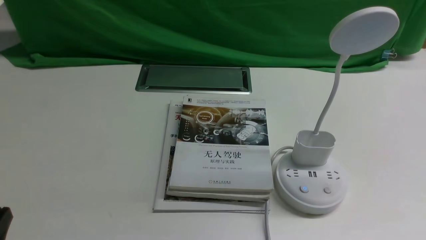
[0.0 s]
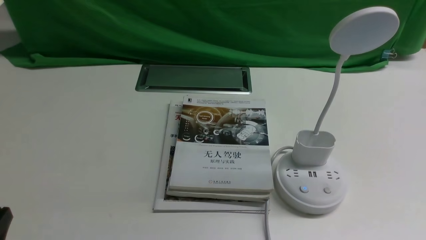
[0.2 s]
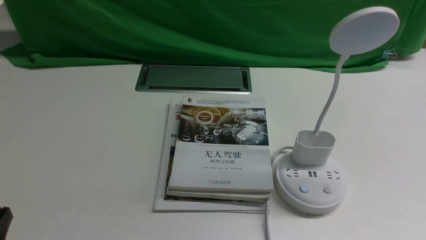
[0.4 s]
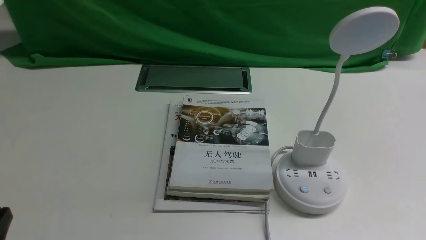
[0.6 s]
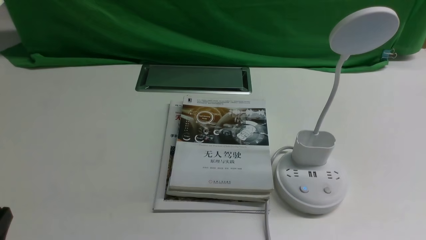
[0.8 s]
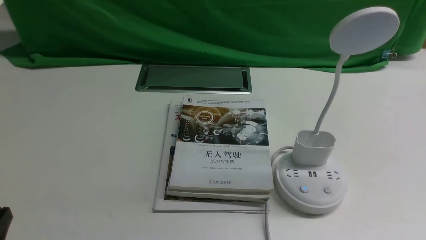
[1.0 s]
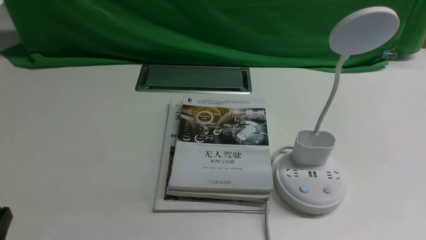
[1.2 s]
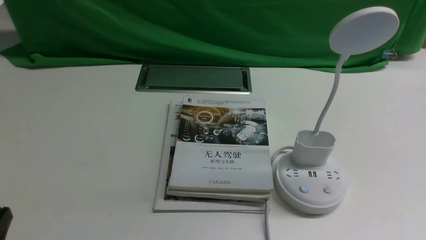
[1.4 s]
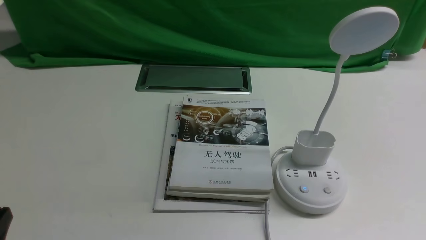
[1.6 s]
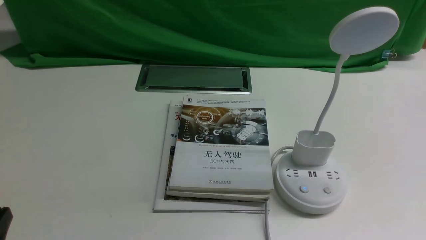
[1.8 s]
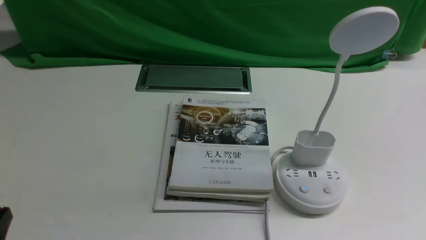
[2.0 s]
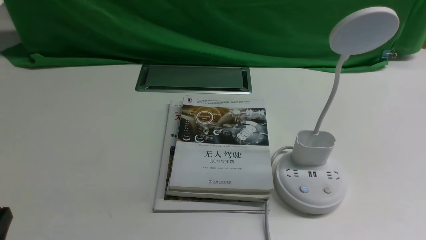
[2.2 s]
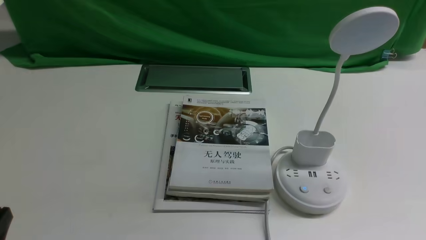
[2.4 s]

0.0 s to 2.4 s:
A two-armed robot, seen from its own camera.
Task of the whole recording: turn off the desk lamp on the white desktop by hand.
0.0 to 1.2 s: Neither gripper changes place.
